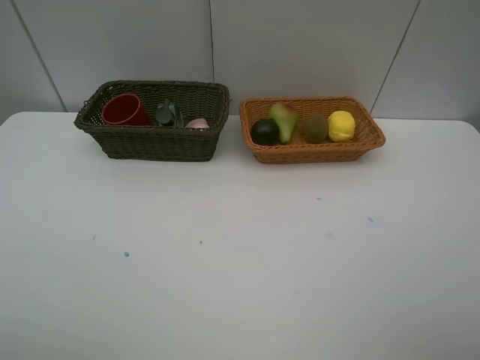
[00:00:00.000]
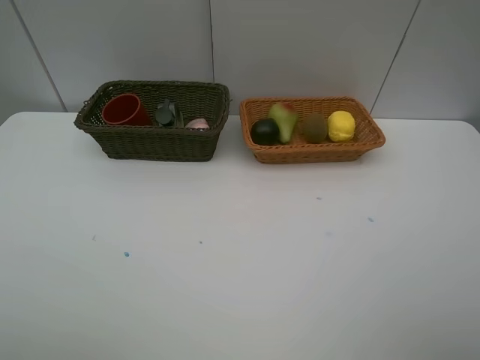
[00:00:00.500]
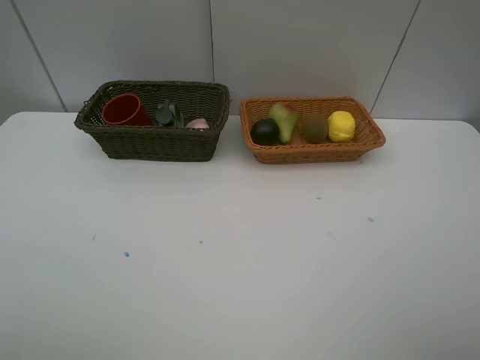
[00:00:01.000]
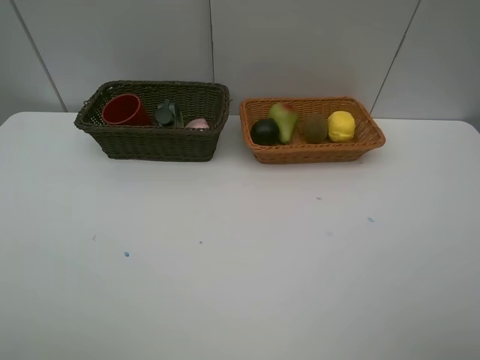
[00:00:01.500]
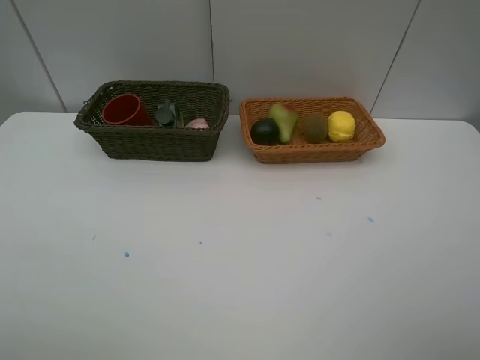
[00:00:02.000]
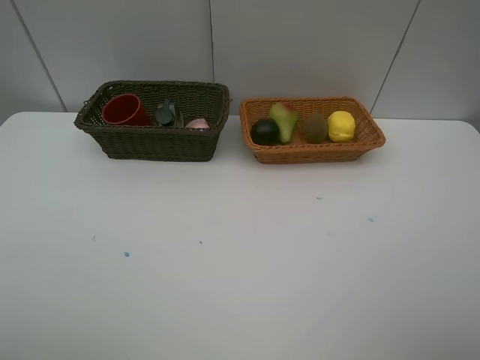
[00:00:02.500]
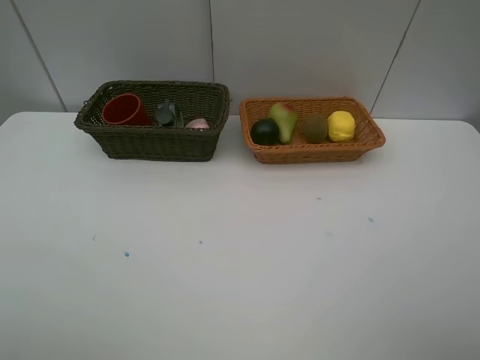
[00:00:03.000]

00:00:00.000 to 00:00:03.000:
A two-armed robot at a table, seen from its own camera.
Task of the whole recording: Place multiple objects separately in different baskets.
00:00:00.000 to 00:00:03.000: Both grippers stay put.
